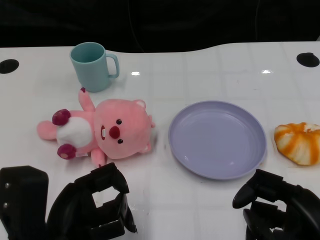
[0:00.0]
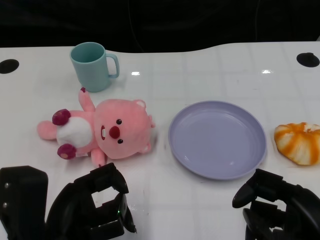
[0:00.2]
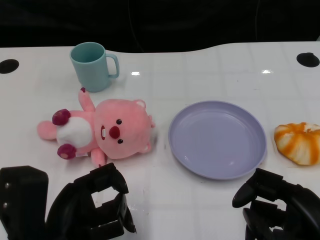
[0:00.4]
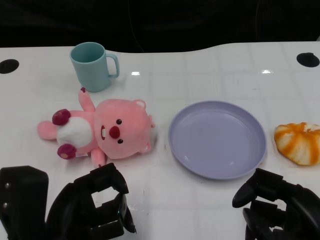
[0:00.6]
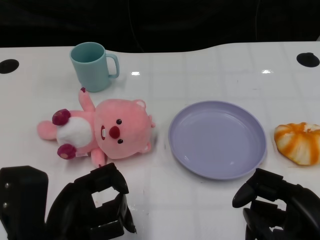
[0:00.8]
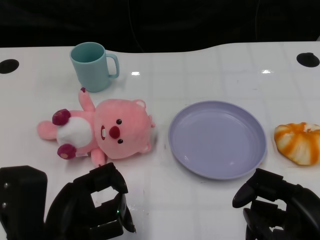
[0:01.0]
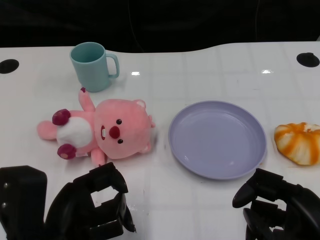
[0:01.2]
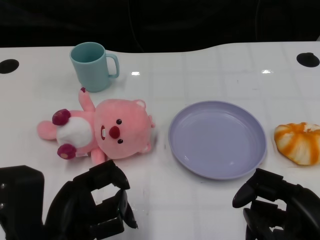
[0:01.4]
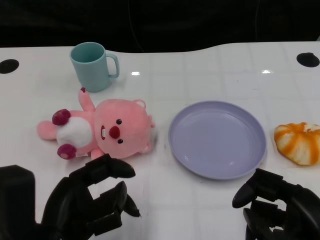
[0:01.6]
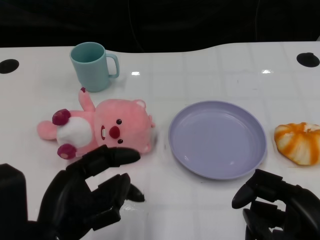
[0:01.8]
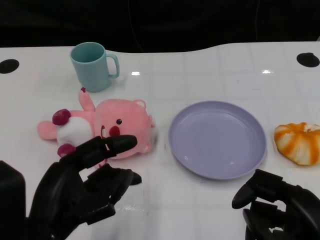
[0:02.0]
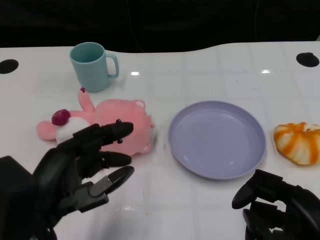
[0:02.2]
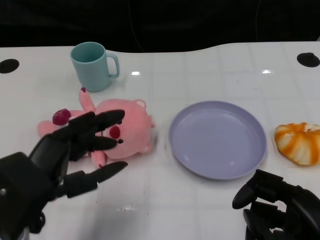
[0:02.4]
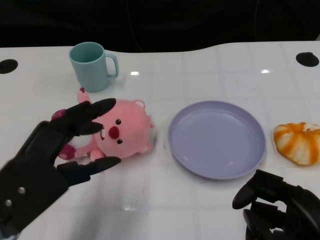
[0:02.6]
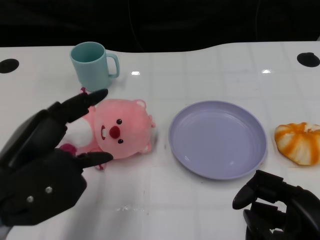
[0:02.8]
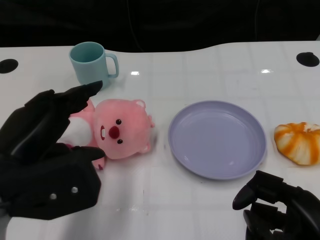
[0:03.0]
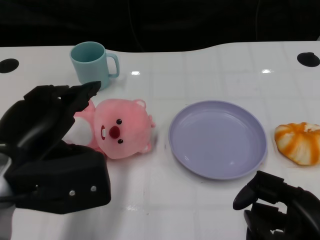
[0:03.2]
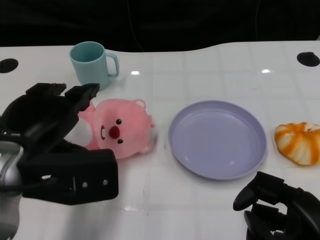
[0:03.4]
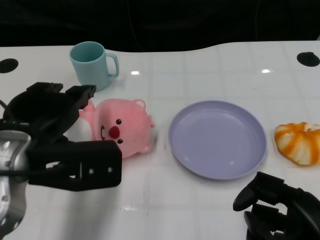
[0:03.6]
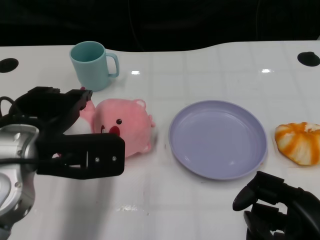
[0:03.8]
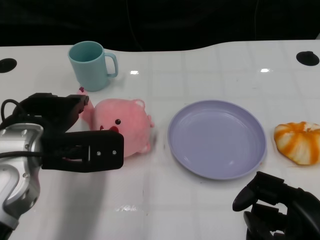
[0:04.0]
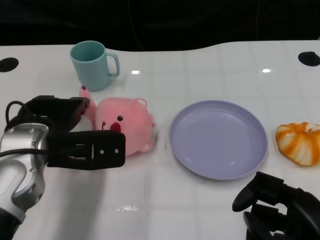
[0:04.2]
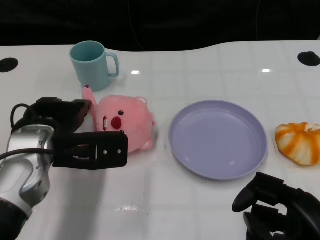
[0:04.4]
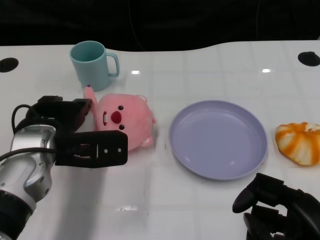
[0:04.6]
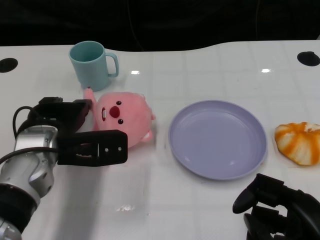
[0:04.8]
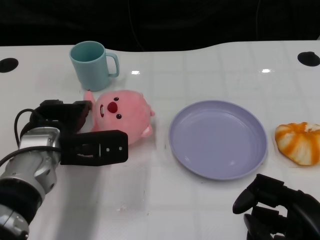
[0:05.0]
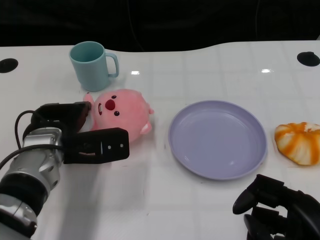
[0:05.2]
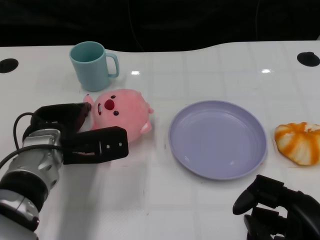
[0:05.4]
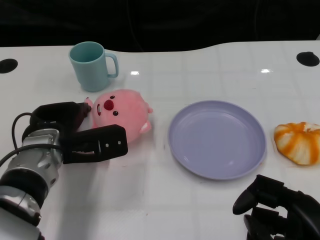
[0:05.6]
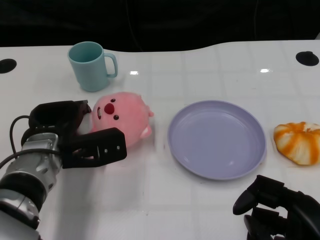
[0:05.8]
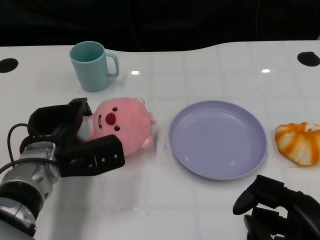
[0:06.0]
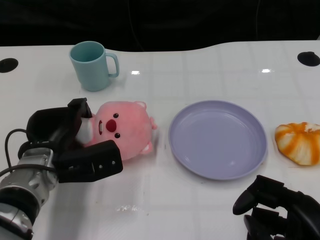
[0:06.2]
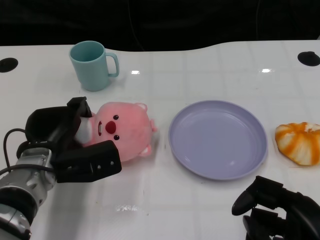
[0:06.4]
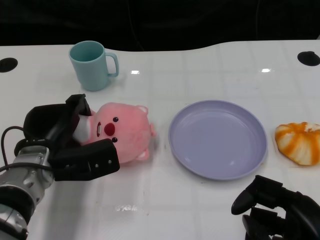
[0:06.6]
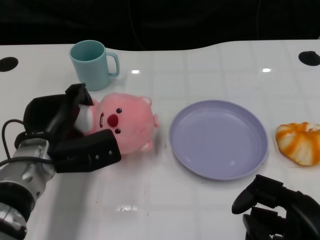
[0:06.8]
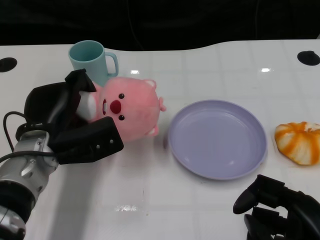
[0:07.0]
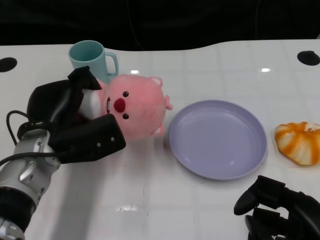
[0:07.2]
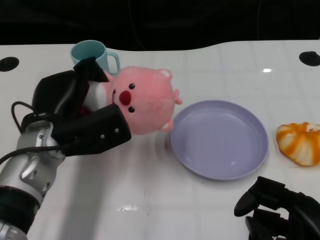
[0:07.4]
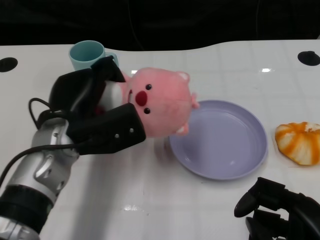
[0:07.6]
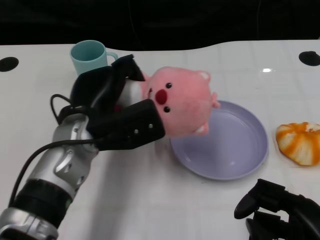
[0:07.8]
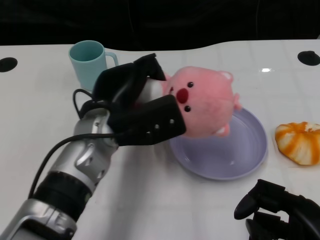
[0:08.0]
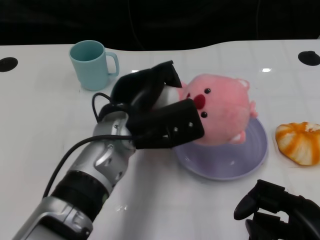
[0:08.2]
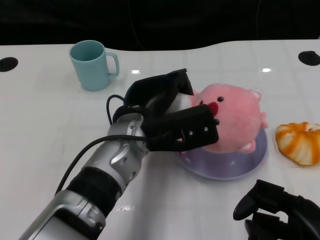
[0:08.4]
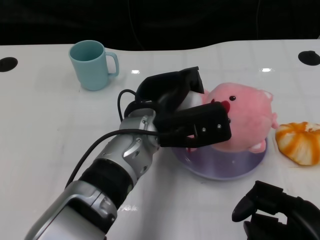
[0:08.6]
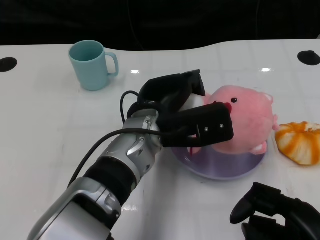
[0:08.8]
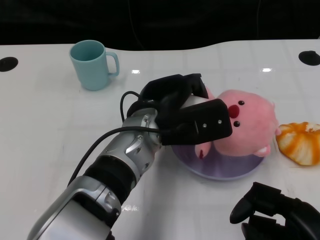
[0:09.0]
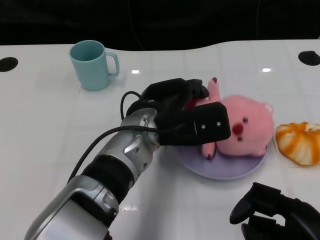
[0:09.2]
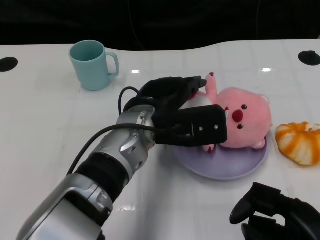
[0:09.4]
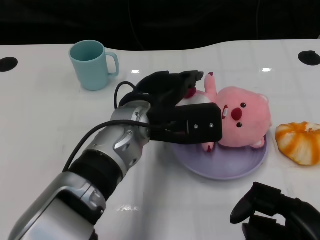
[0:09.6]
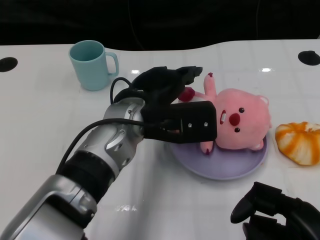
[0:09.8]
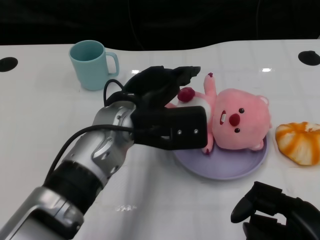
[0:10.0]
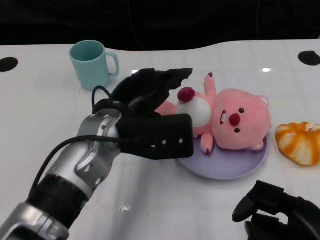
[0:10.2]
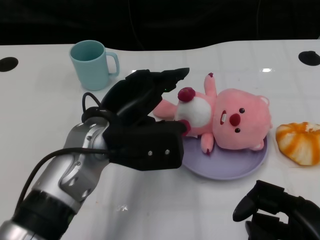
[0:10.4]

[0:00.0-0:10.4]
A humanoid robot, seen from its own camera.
Task of the whole recording: Pick up the doll on one side of the plate and place it into the plate.
Step, 0:01.4 to 0:06.8: Grasp the pink doll with the left gripper.
Step, 0:07.2 to 0:10.0: Place the pink doll into the plate with the left gripper.
0:01.4 to 0:03.0: The left hand heads upward, covering some 5 cm.
0:03.0 to 0:04.4: The left hand goes about 10 cm forward.
0:04.4 to 0:06.0: The left hand travels downward by roughly 5 cm.
0:06.0 to 0:07.4: The left hand travels upward by some 5 cm.
0:07.4 to 0:09.0: The left hand is displaced to the right by roughly 15 cm.
0:09.0 to 0:10.4: The left hand heads to the left, covering roughly 5 cm.

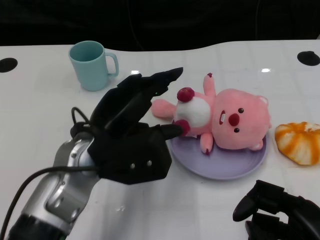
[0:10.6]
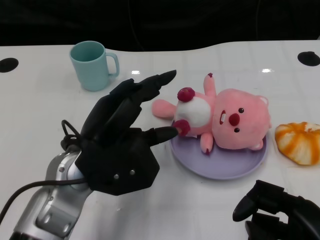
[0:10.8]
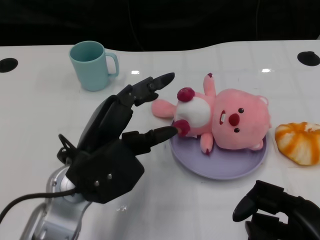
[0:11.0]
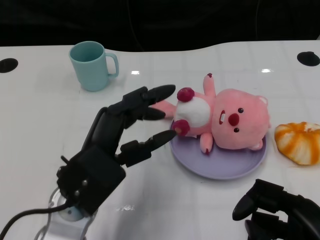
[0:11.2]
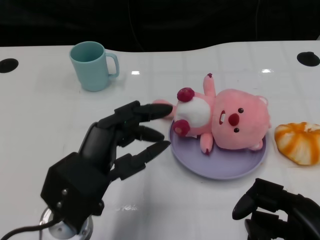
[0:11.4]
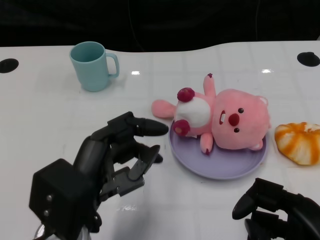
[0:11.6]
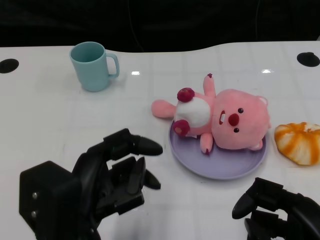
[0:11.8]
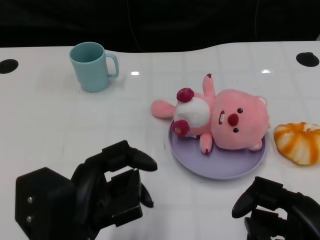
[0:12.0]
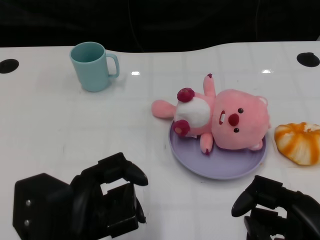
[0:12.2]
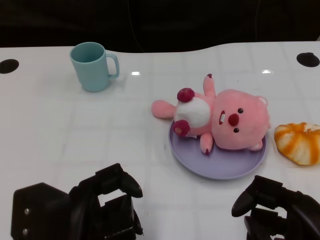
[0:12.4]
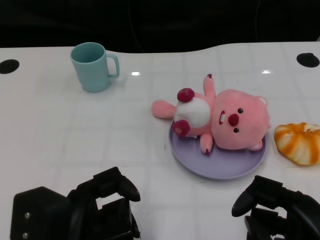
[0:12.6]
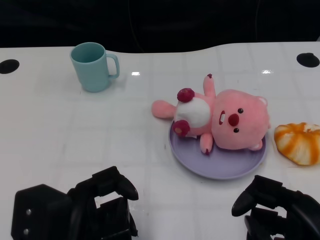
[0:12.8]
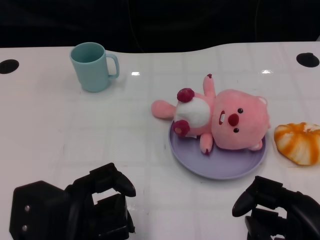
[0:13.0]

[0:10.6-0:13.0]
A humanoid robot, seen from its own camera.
Task of the whole recording: Pick up the doll on one side of the plate and place it into the plate.
0:10.6 to 0:11.8: The left hand goes some 10 cm backward.
0:11.8 to 0:13.0: The hands stay close to where they were, moving slightly.

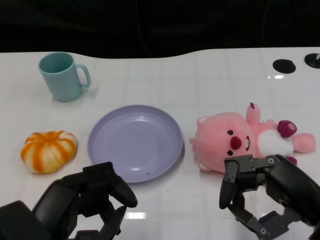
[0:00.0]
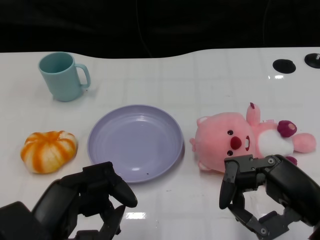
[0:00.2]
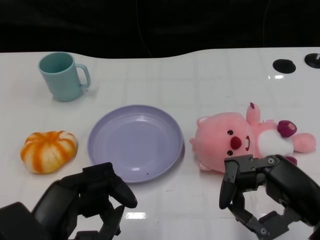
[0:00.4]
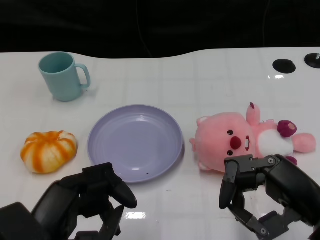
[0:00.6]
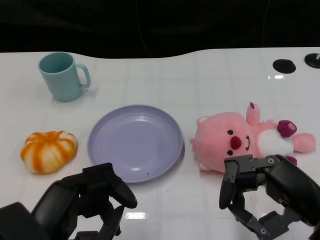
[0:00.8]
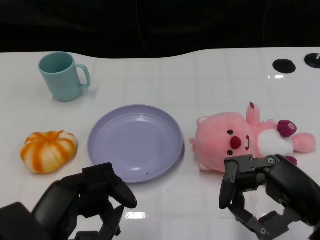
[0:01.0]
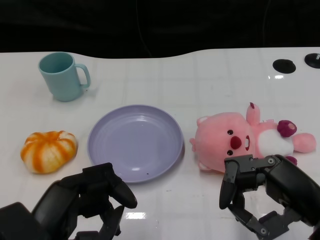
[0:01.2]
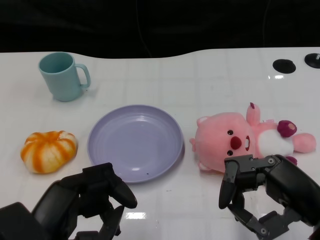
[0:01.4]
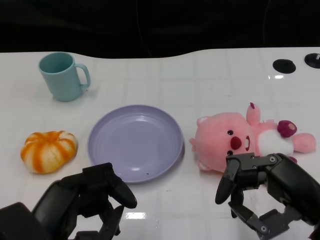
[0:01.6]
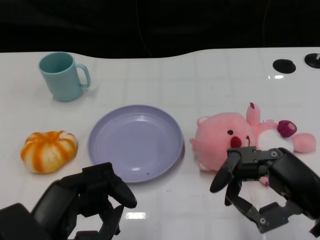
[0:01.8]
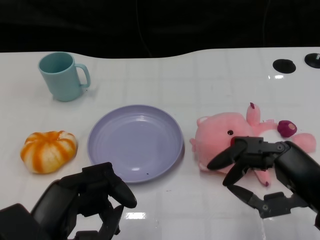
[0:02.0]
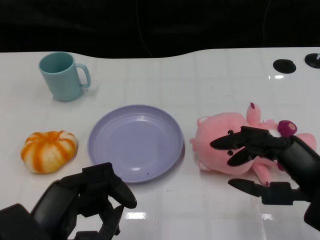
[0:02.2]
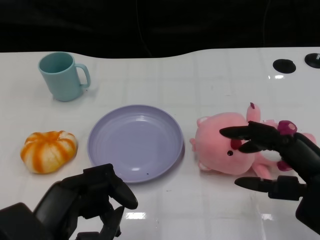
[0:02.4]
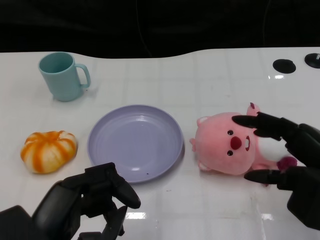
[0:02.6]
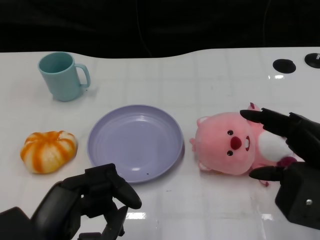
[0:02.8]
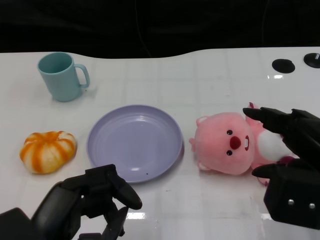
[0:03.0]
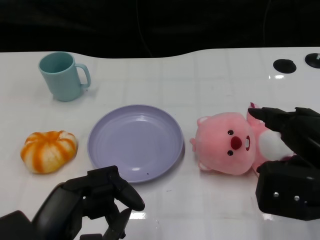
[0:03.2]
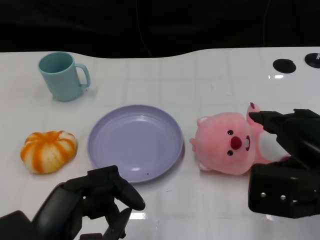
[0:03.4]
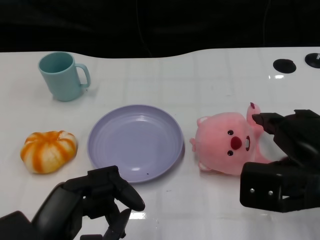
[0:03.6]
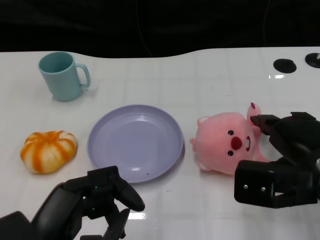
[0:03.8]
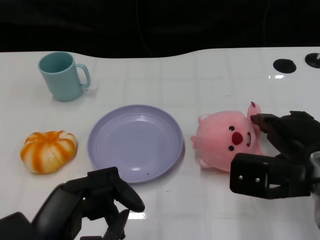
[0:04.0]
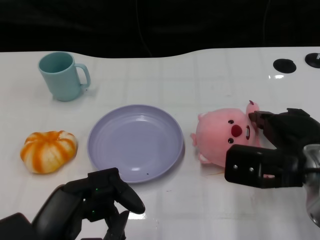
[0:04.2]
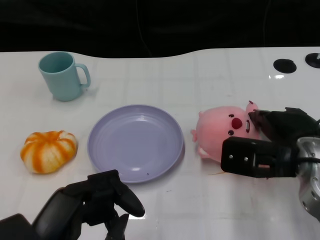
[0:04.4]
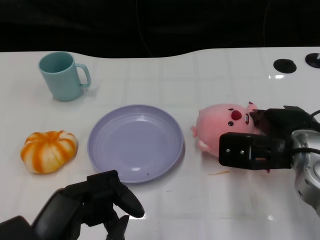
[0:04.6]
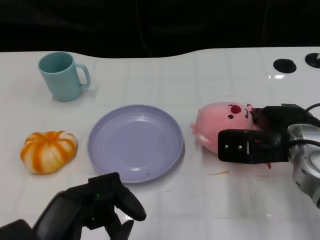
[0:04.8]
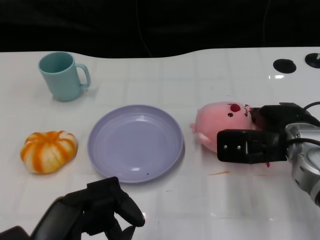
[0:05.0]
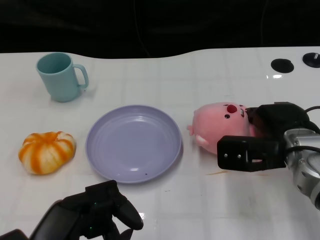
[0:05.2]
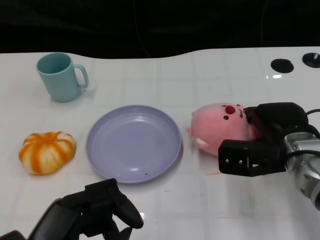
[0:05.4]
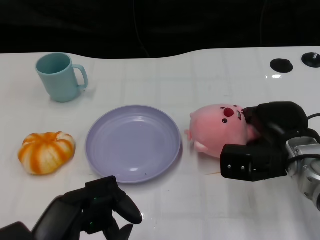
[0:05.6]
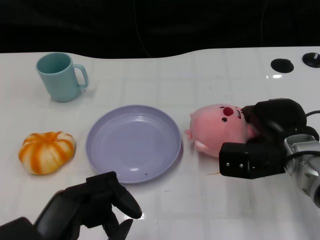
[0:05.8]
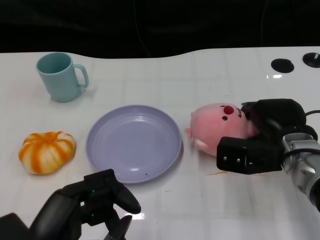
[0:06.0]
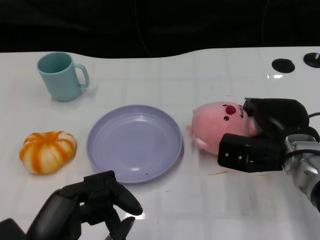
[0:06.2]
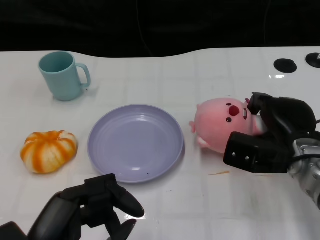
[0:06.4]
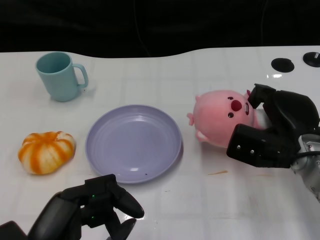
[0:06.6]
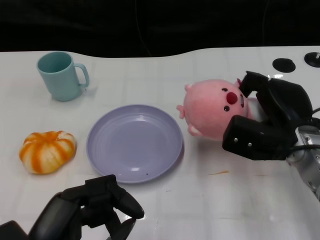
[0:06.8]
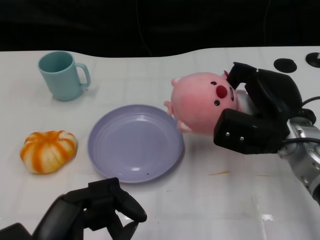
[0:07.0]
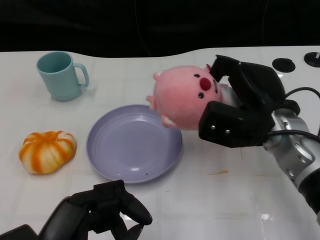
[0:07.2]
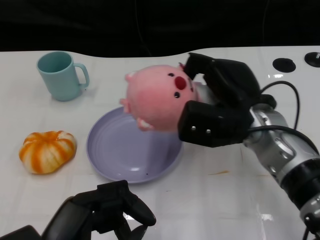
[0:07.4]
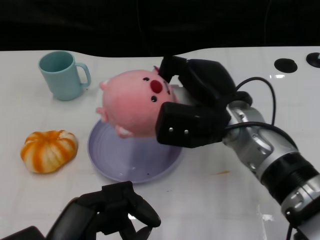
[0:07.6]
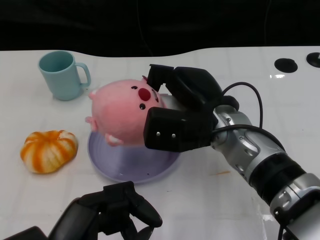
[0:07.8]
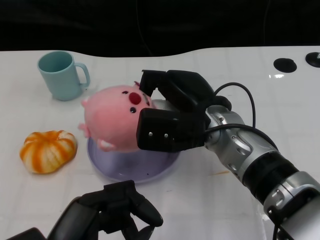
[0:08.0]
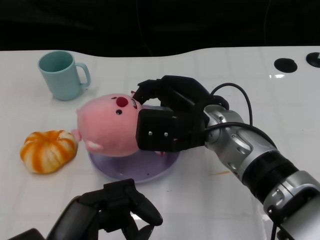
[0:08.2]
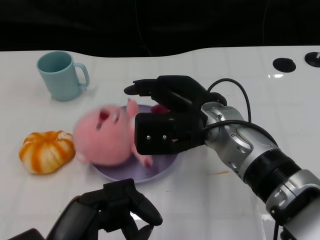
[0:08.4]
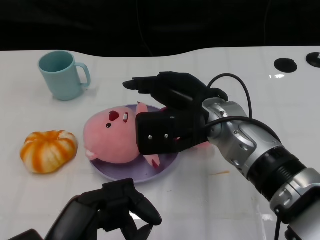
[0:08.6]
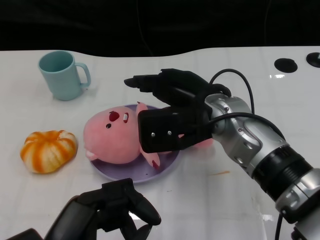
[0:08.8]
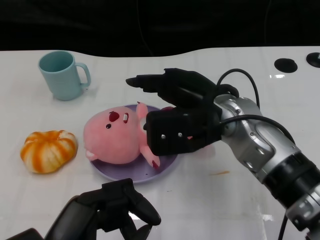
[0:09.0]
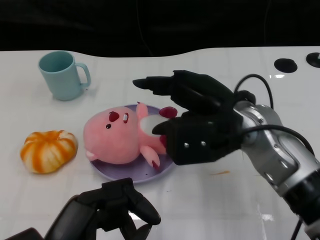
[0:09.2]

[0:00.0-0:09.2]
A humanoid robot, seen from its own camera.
Task of the whole recording: Pick up the doll on the other side of the plate and place it into the plate.
Step, 0:01.0 to 0:06.8: Grasp the pink doll with the right gripper.
0:01.6 to 0:03.0: The right hand ends up roughly 5 cm from where it was.
0:03.0 to 0:04.6: The right hand moves forward and downward, roughly 10 cm.
0:06.2 to 0:07.6: The right hand shifts approximately 10 cm to the left and upward.
